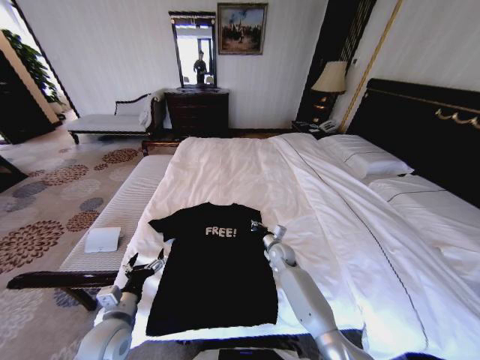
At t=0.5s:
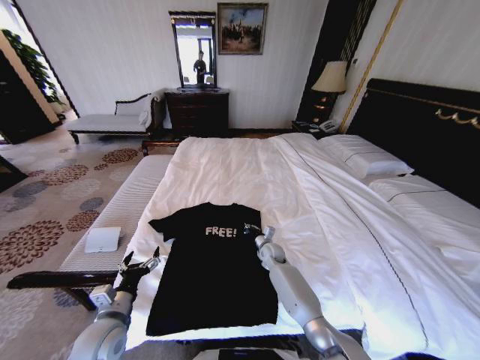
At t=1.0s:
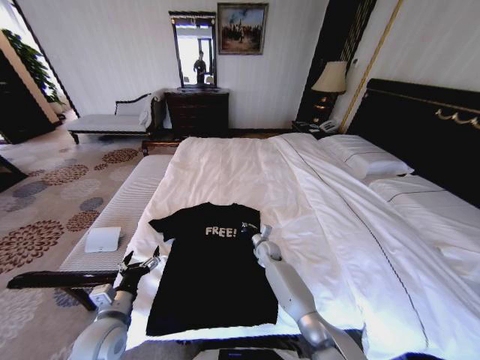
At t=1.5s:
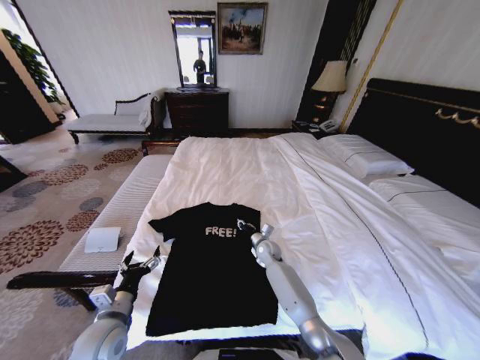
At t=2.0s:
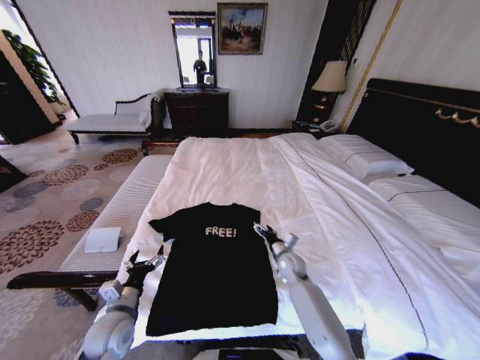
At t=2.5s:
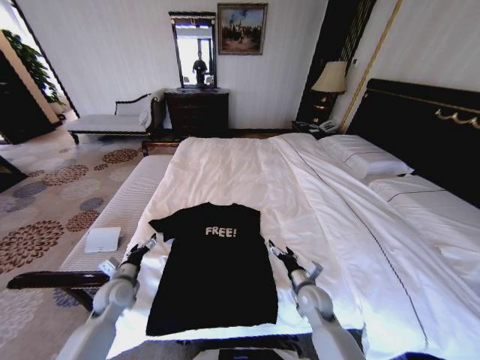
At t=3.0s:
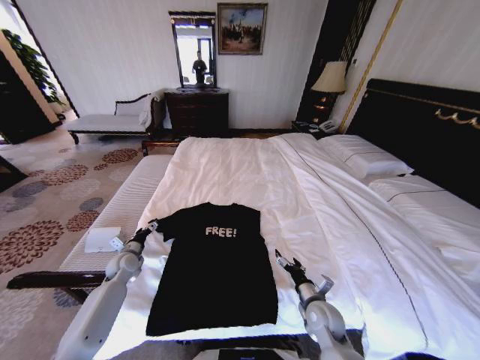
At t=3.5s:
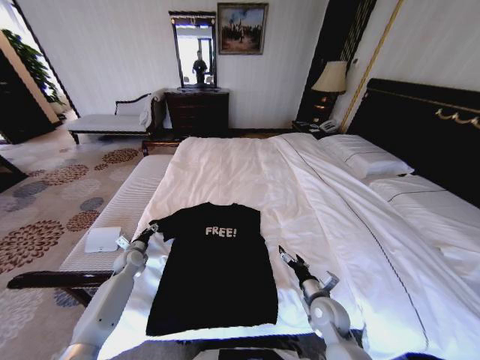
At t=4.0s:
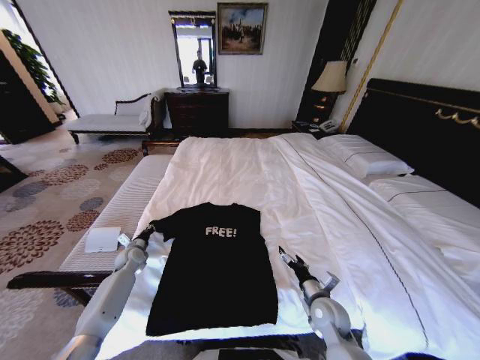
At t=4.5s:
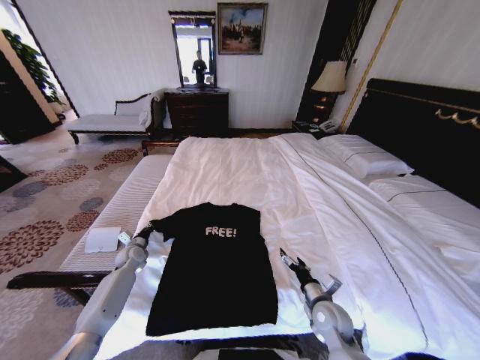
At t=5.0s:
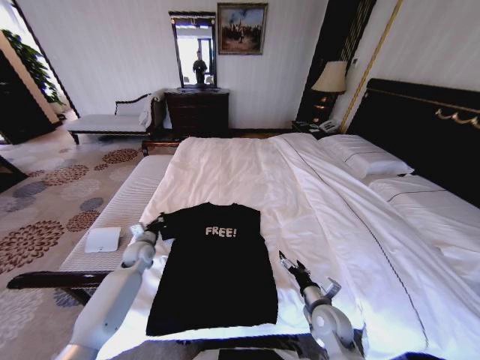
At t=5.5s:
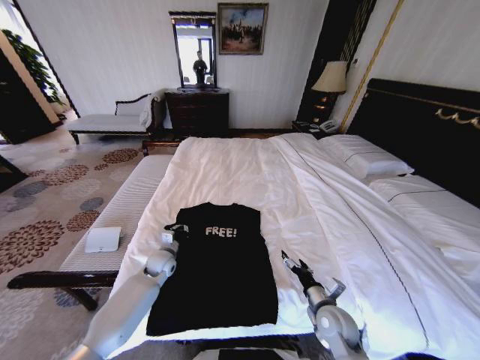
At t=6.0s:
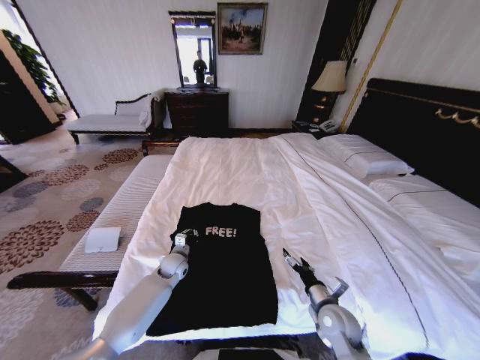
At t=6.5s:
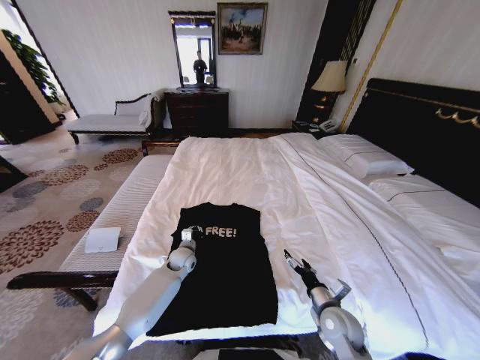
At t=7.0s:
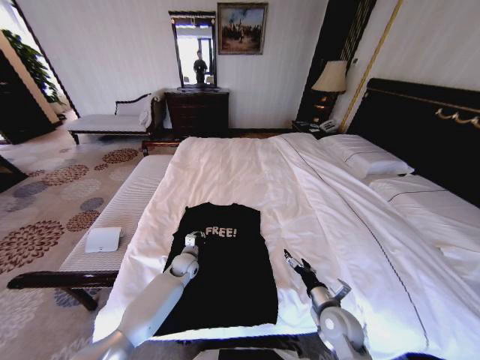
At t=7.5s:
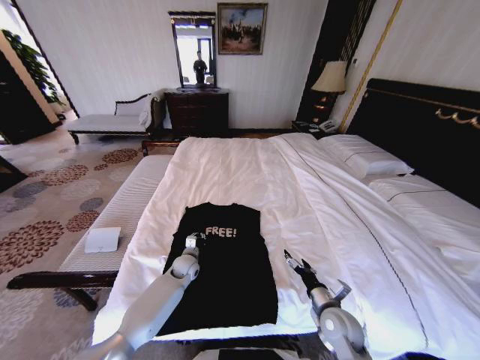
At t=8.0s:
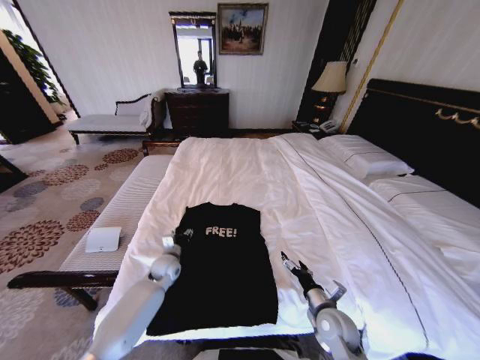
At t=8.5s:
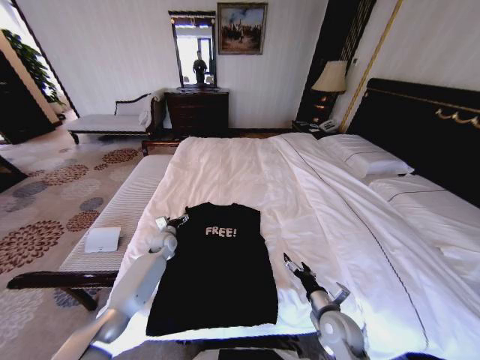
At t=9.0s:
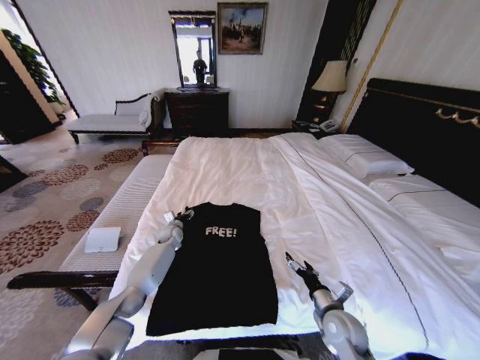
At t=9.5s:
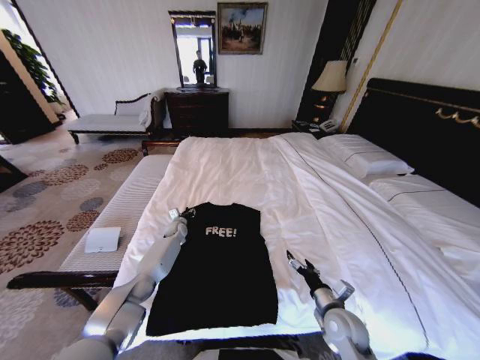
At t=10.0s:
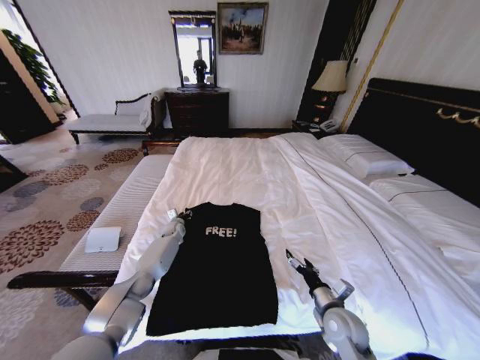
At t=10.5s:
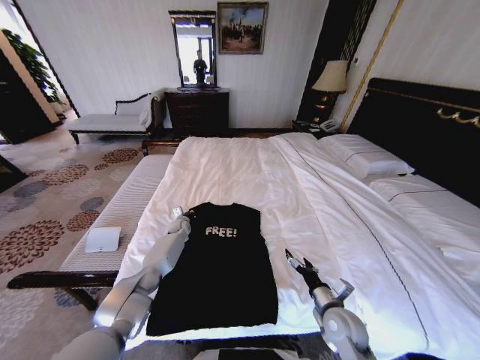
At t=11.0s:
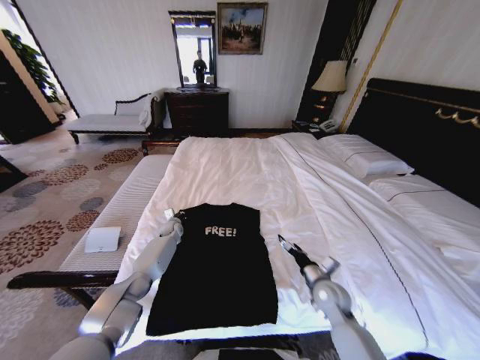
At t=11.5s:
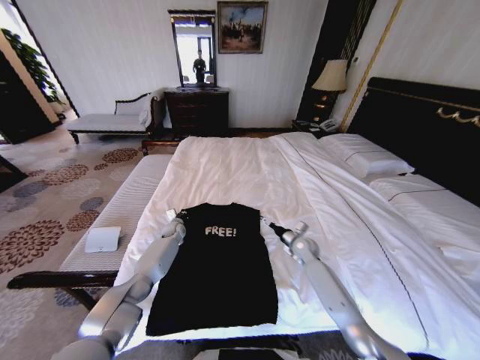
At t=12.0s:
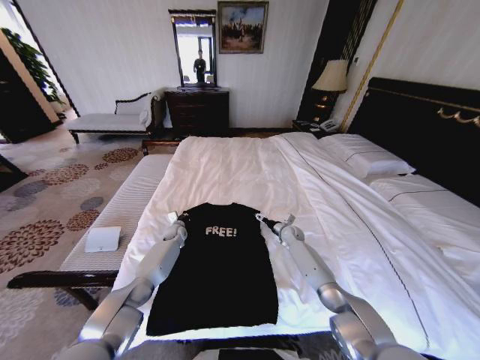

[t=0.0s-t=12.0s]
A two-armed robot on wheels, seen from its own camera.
Task of the whole recording: Fold the clothes on the bed.
t=0.0s to t=2.0s: The right gripper shifts by about 5 cm, and opens.
t=2.0s to t=4.0s: The left gripper travels forward and to the left by some 25 cm, and closes its fingers, while the right gripper is displaced backward by roughly 15 cm.
t=4.0s to t=6.0s: The left gripper moves to the right, approximately 20 cm.
t=6.0s to t=8.0s: The left gripper opens its fingers.
t=8.0s to t=10.0s: The left gripper shifts approximately 20 cm forward, and opens, then closes once more.
t=10.0s to t=12.0s: The right gripper shifts roughly 35 cm forward, while the left gripper closes up.

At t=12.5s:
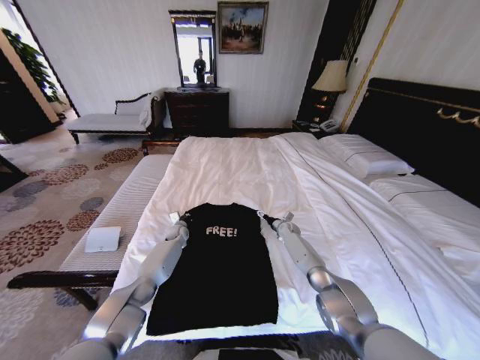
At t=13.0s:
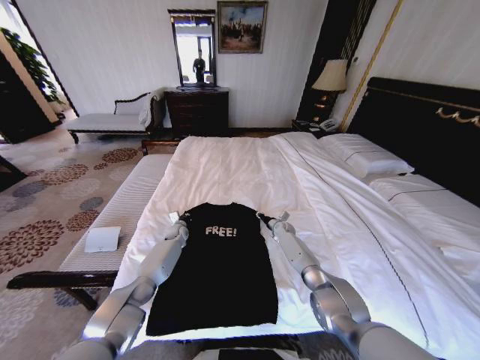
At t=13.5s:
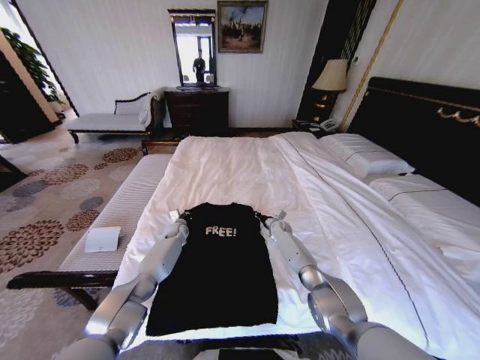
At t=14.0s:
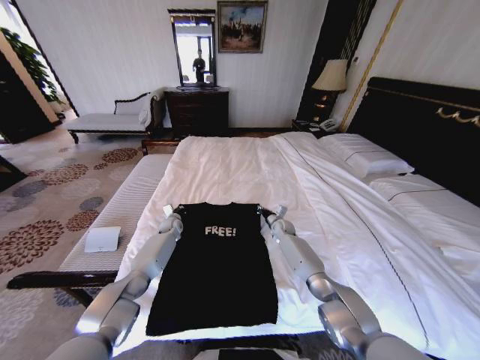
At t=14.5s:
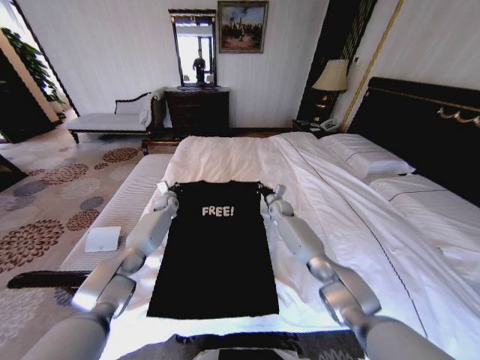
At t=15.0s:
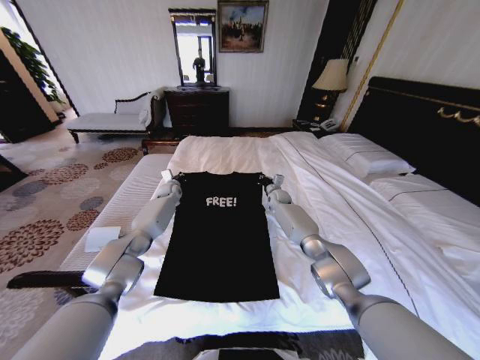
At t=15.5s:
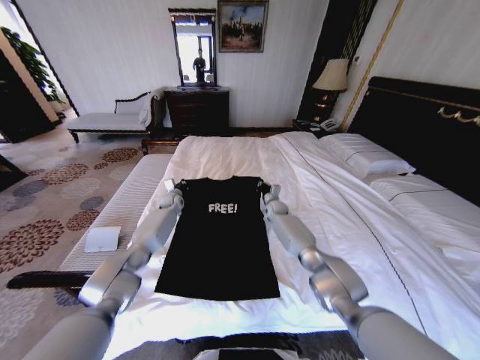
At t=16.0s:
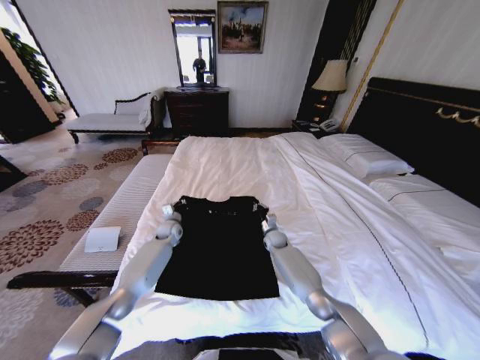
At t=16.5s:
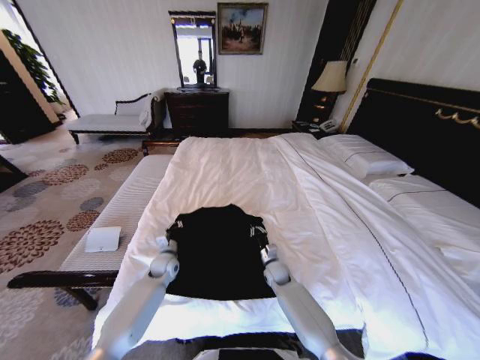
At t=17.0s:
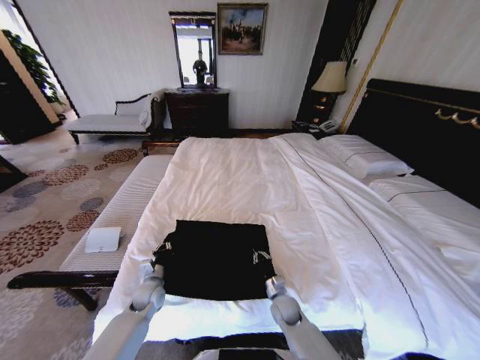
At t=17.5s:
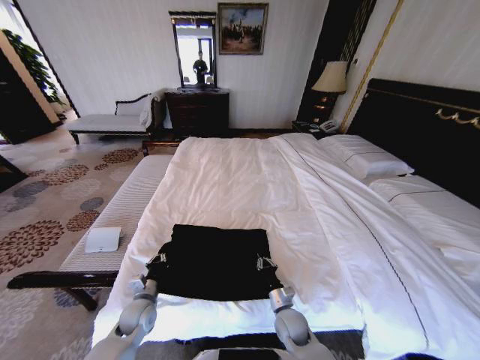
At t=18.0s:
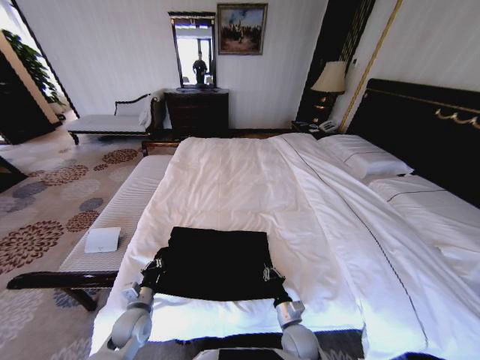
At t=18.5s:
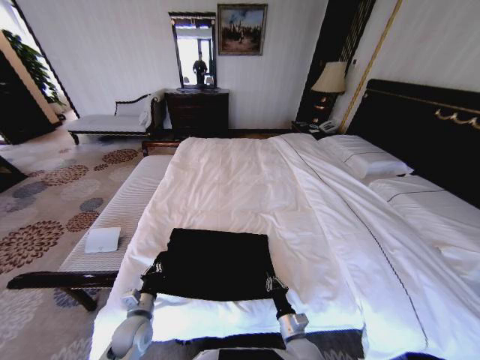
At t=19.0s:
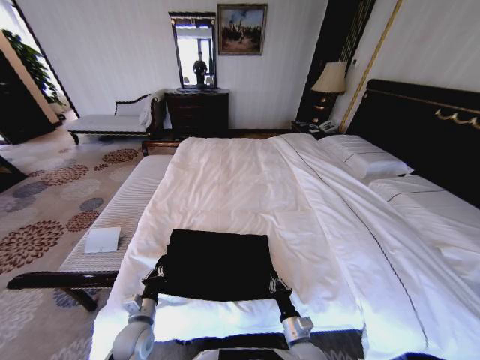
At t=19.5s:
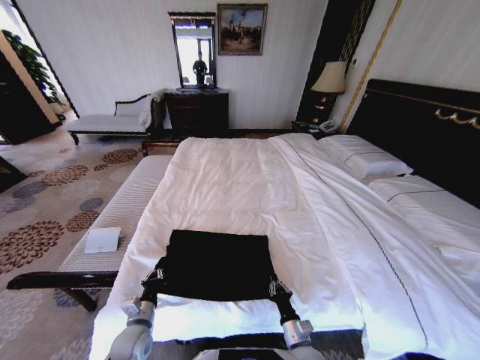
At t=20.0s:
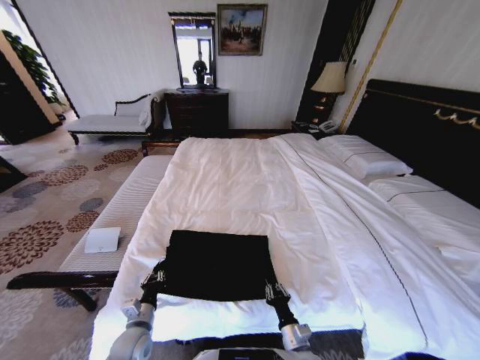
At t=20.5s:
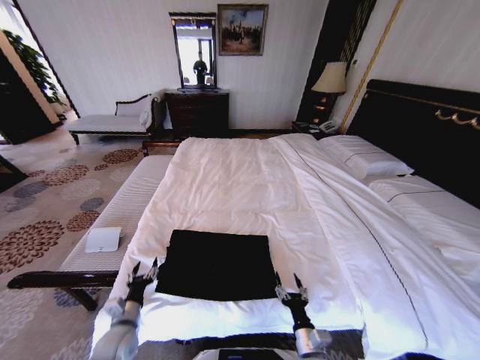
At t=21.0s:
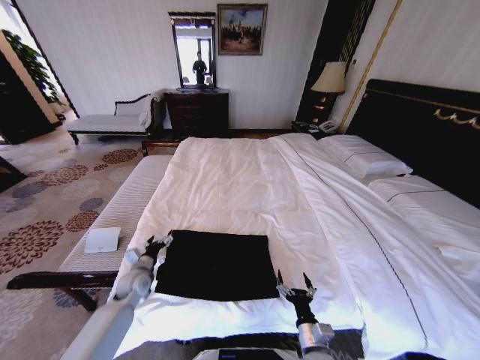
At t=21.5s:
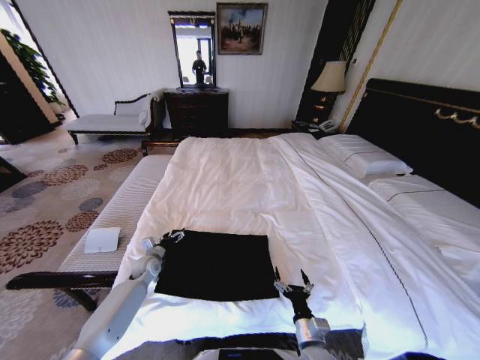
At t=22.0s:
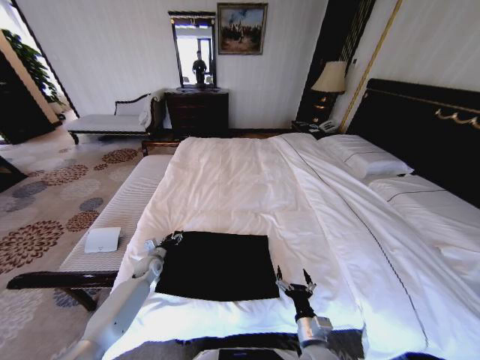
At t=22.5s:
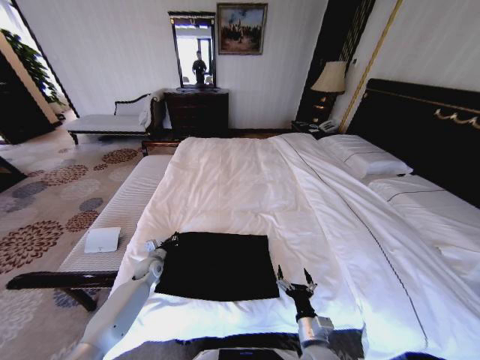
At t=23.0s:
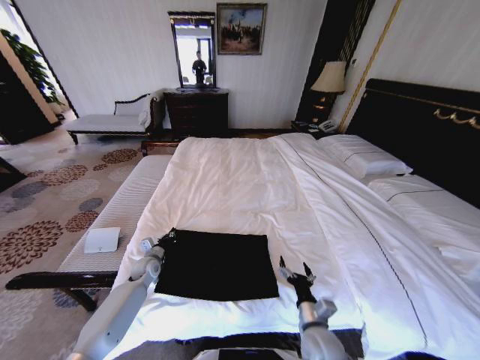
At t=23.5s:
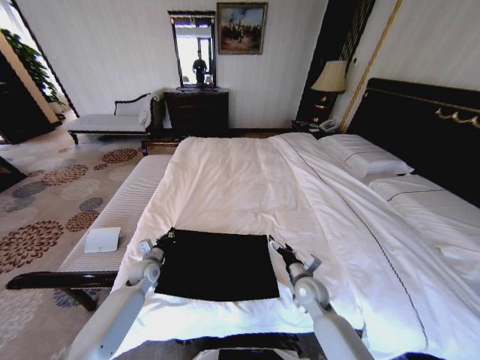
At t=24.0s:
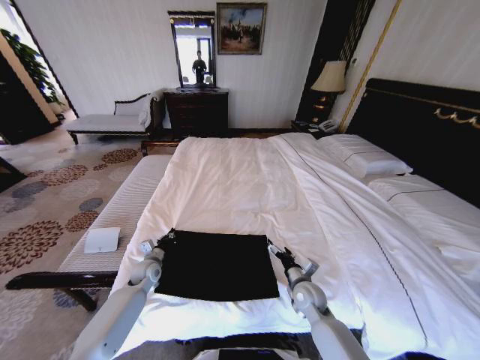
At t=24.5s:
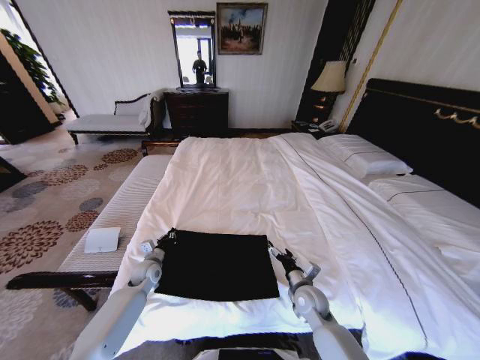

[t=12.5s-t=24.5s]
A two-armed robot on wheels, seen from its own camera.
Task of the whole recording: Fold the clothes on the bed.
t=12.5s to t=14.5s: The left gripper heads upward and forward, covering some 15 cm; the right gripper shifts approximately 15 cm upward and to the left, and closes.
t=14.5s to t=16.5s: The two grippers go approximately 25 cm backward and downward.
t=16.5s to t=18.5s: Both grippers move backward, some 20 cm.
t=18.5s to t=20.5s: The left gripper opens up; the right gripper ends up about 5 cm from where it was, and opens its fingers.
t=20.5s to t=22.5s: The left gripper heads forward, covering approximately 20 cm, and closes up.
t=22.5s to t=24.5s: The left gripper moves some 5 cm. The right gripper goes roughly 15 cm forward.

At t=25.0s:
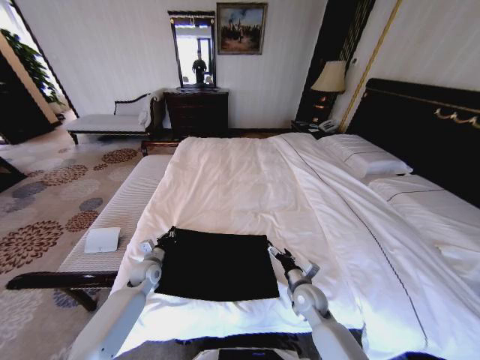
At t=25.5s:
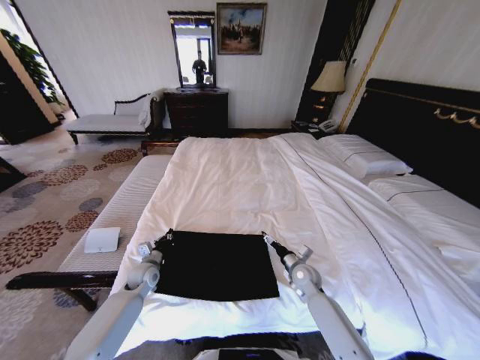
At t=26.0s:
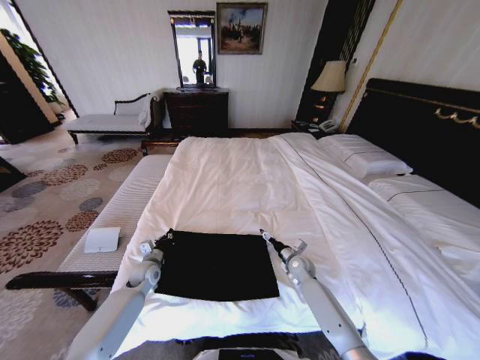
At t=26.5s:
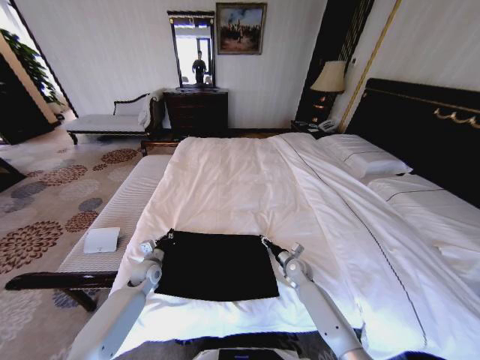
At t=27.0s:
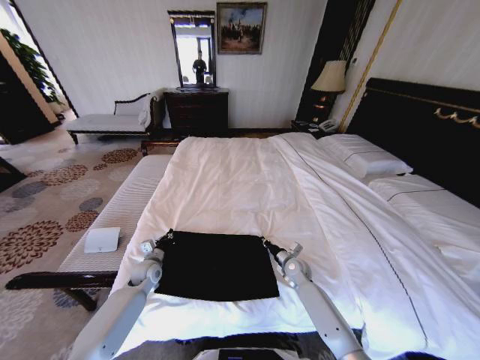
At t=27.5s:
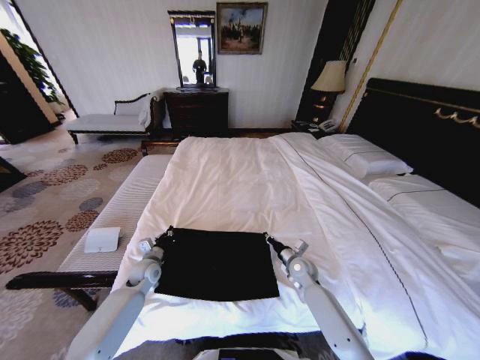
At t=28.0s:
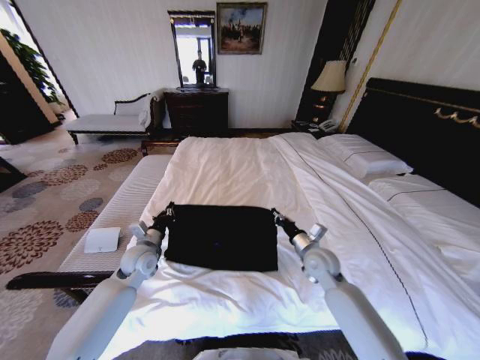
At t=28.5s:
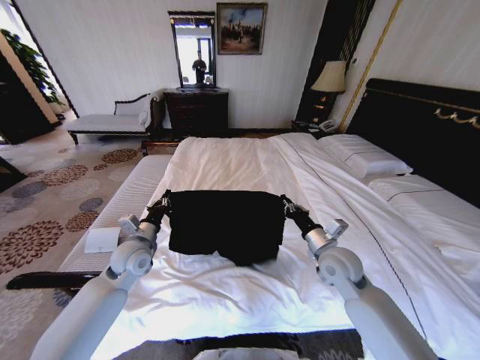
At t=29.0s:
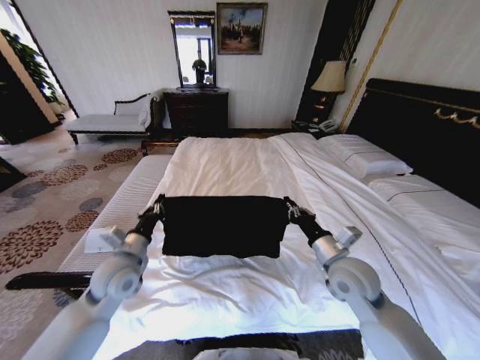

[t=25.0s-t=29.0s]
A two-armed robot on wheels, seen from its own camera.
Task of the whole recording: Fold the clothes on the bed.
t=25.0s to t=27.0s: The right gripper shifts roughly 10 cm forward, and closes its fingers.
t=27.0s to t=29.0s: The two grippers go roughly 25 cm upward and backward.
